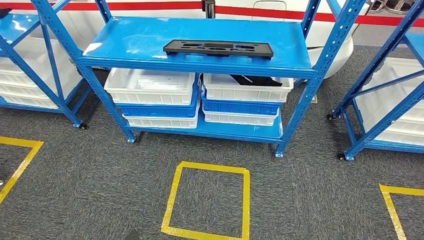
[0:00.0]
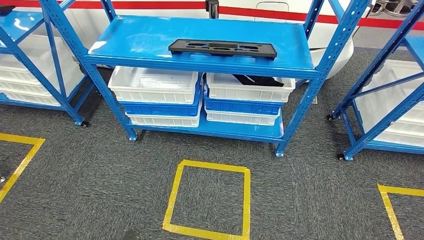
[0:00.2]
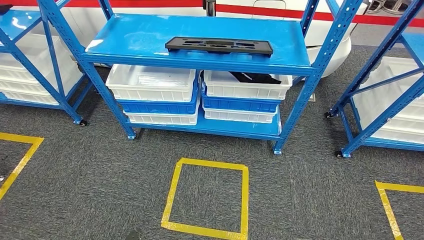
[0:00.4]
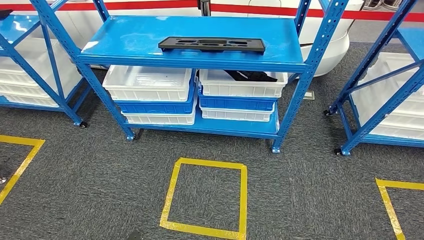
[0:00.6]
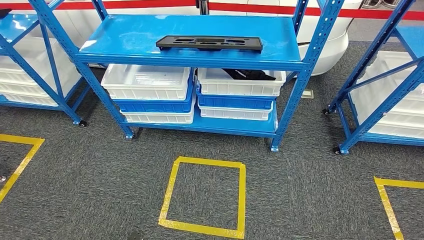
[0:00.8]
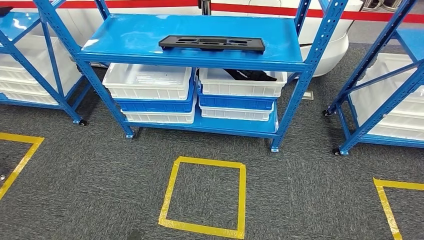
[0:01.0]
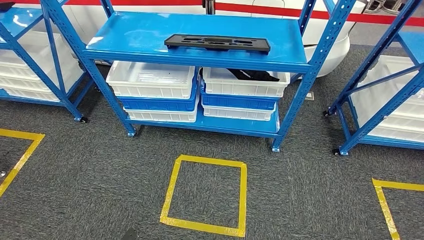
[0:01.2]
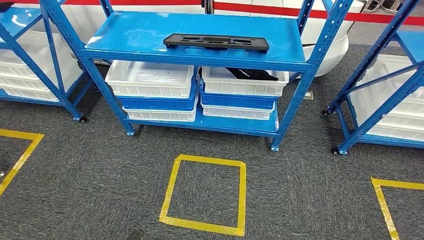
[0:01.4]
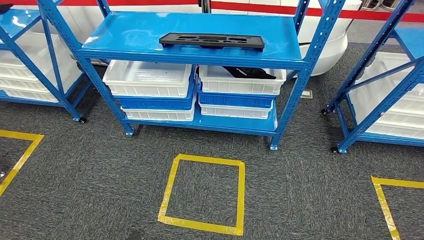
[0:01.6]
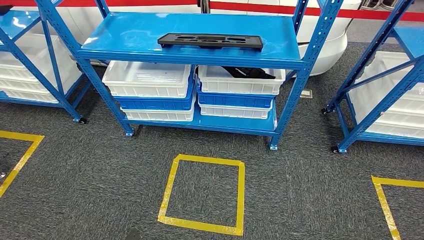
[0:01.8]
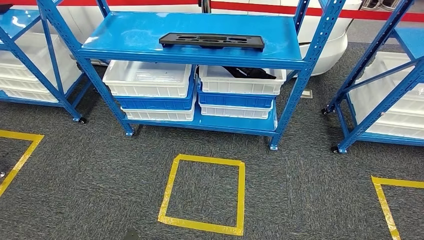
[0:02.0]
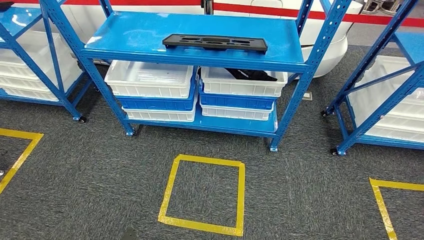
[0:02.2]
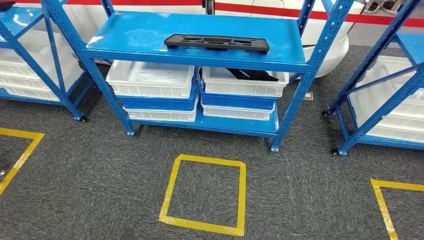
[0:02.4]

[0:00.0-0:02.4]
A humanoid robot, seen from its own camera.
Step, 0:00.0 to 0:02.2: Move to the initial position of the shelf.
0:01.2 to 0:02.4: There are only small adjustments of the hands.

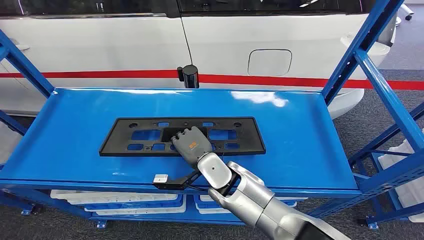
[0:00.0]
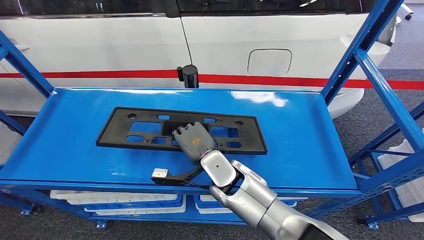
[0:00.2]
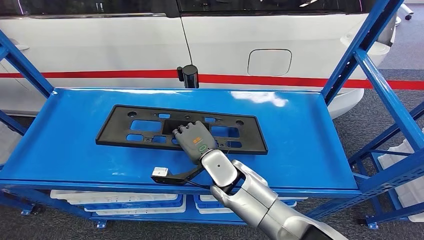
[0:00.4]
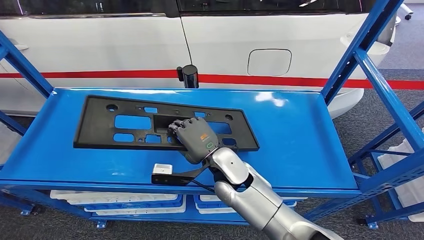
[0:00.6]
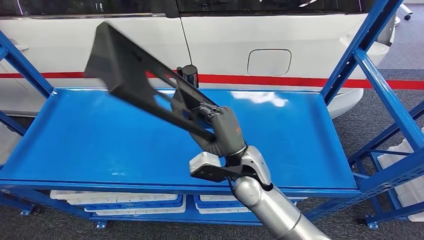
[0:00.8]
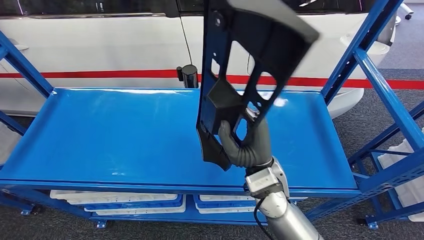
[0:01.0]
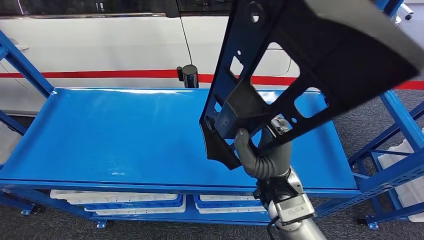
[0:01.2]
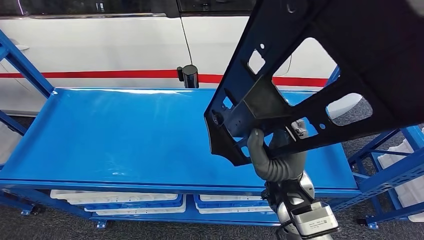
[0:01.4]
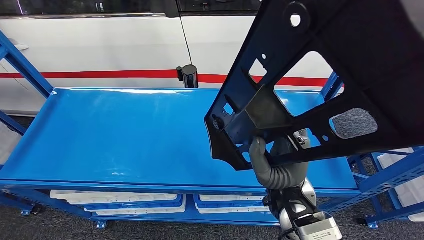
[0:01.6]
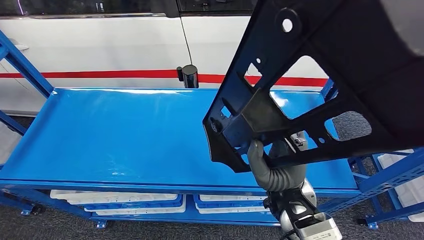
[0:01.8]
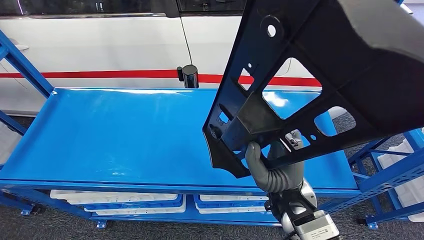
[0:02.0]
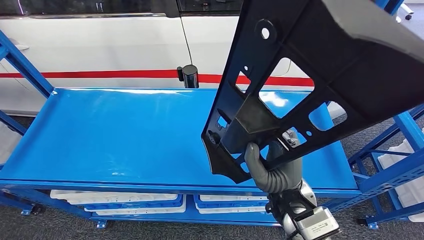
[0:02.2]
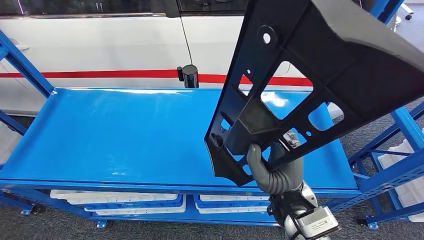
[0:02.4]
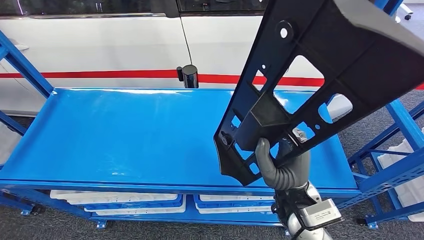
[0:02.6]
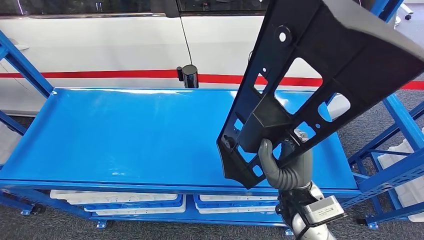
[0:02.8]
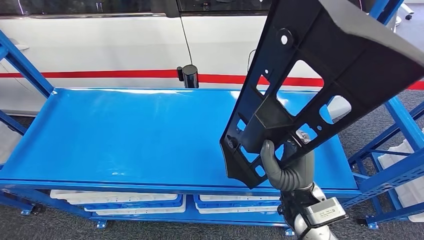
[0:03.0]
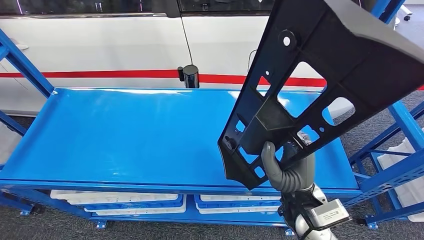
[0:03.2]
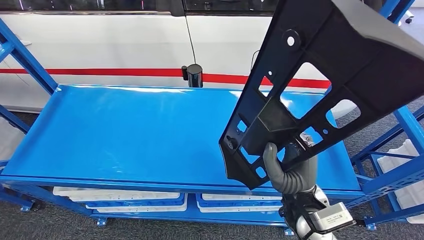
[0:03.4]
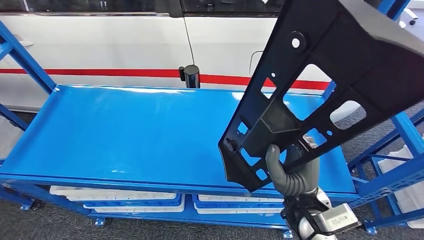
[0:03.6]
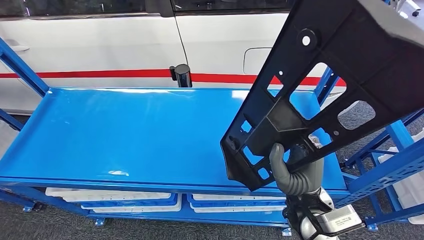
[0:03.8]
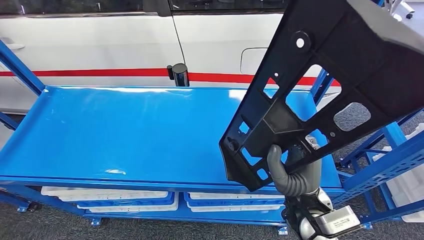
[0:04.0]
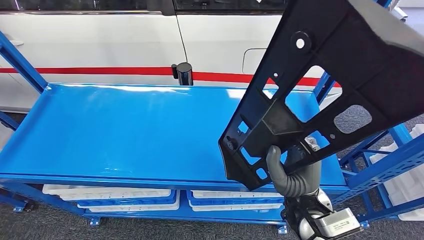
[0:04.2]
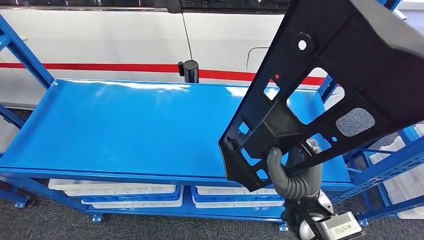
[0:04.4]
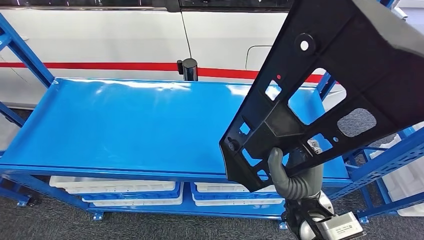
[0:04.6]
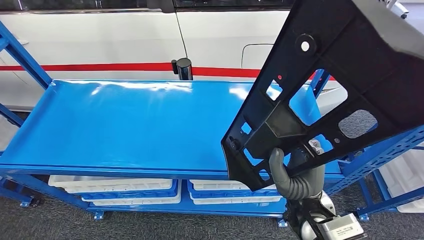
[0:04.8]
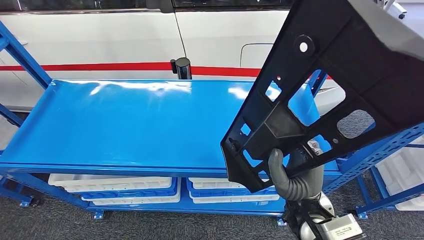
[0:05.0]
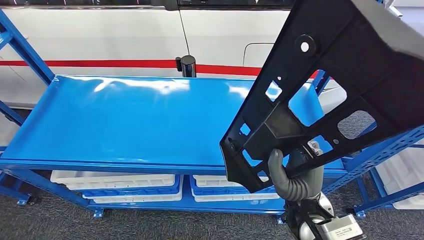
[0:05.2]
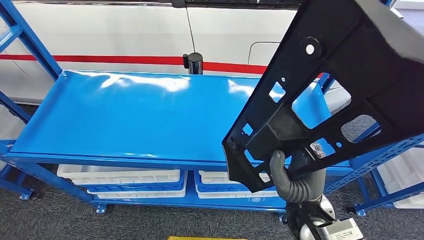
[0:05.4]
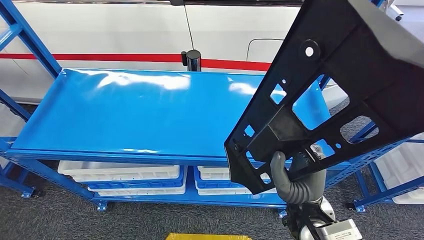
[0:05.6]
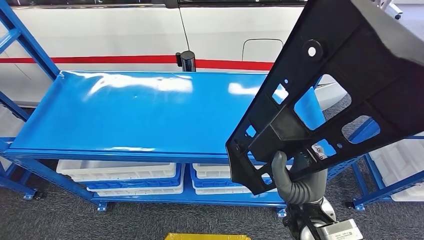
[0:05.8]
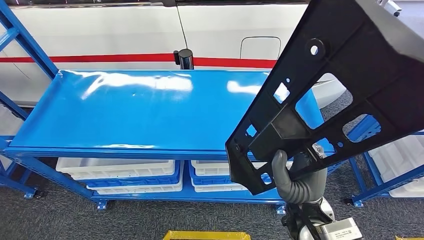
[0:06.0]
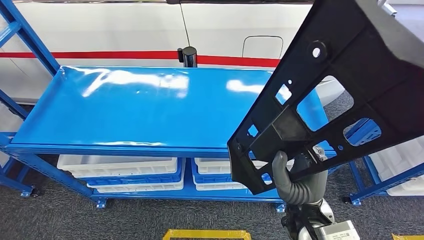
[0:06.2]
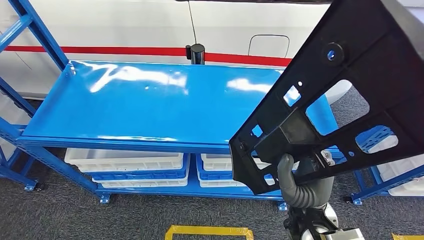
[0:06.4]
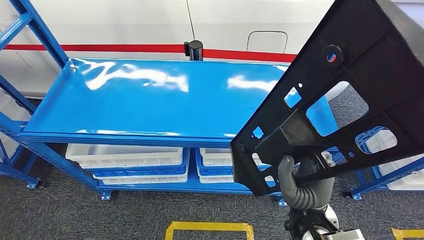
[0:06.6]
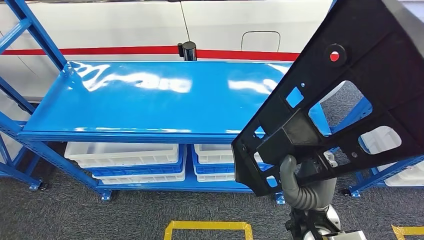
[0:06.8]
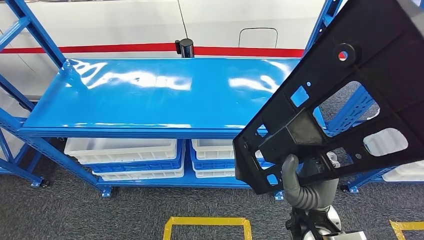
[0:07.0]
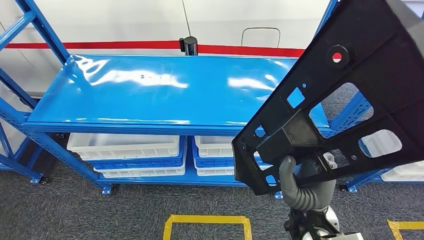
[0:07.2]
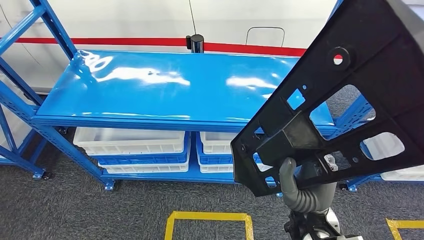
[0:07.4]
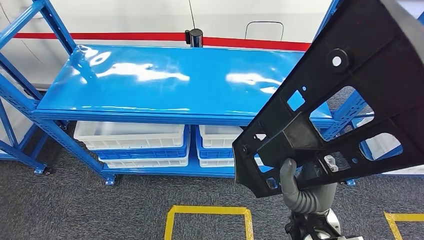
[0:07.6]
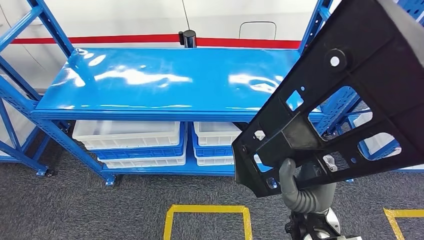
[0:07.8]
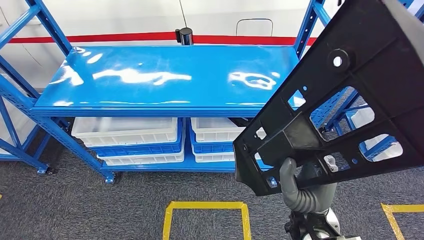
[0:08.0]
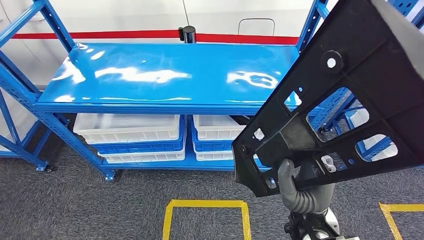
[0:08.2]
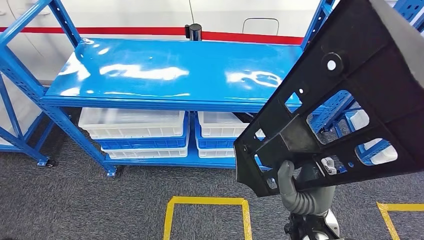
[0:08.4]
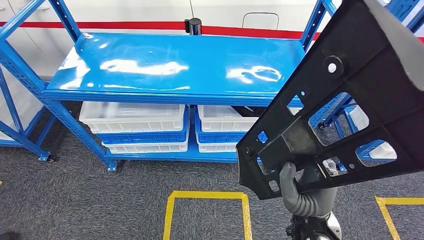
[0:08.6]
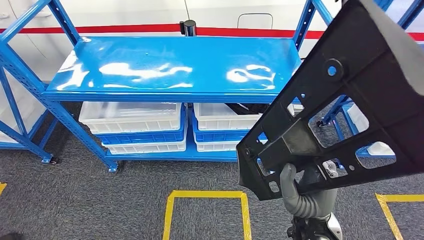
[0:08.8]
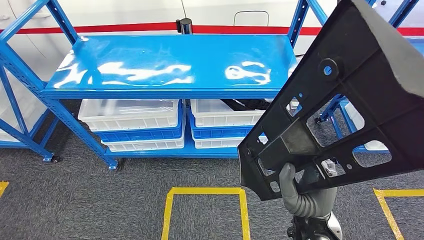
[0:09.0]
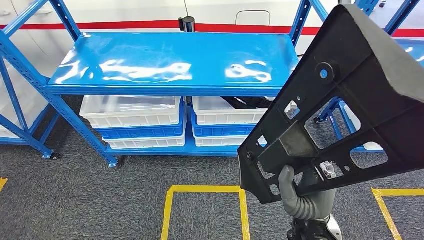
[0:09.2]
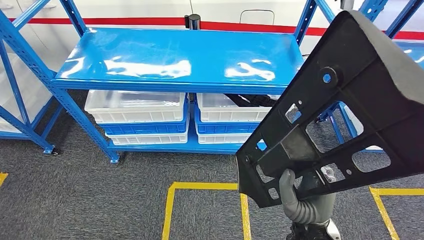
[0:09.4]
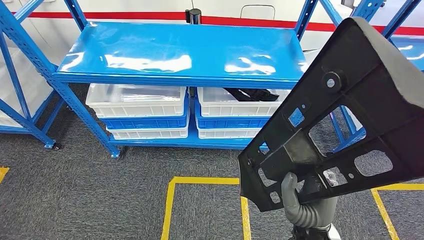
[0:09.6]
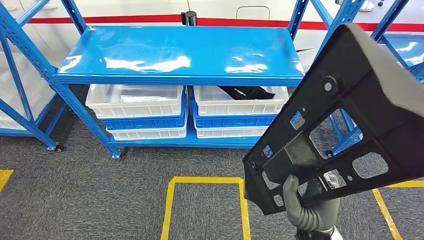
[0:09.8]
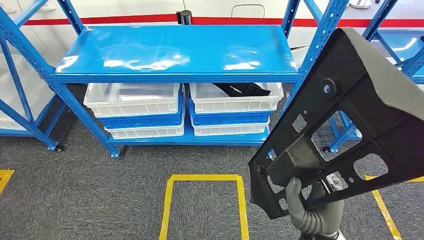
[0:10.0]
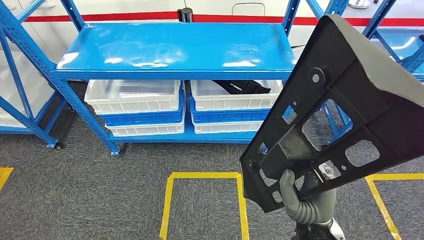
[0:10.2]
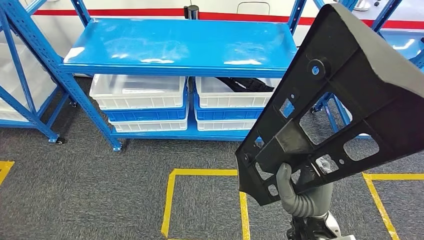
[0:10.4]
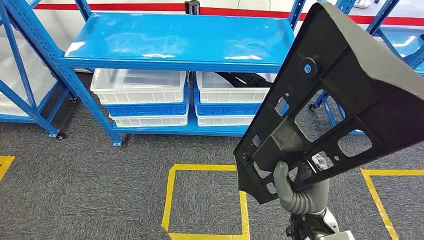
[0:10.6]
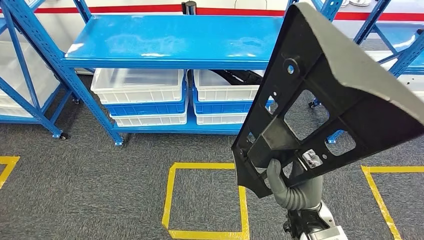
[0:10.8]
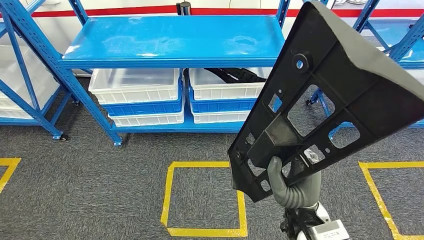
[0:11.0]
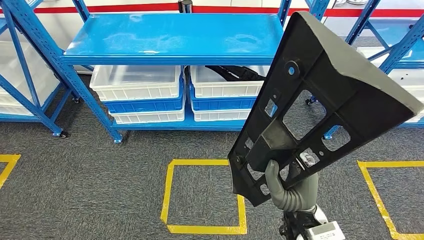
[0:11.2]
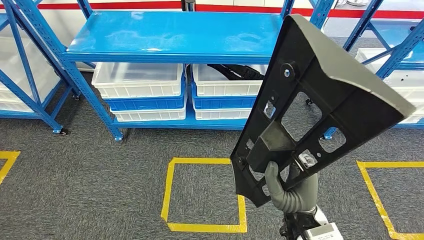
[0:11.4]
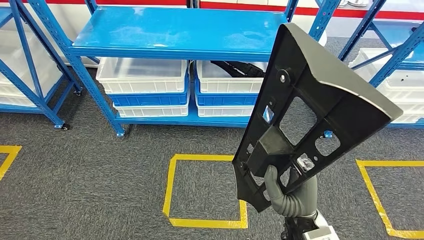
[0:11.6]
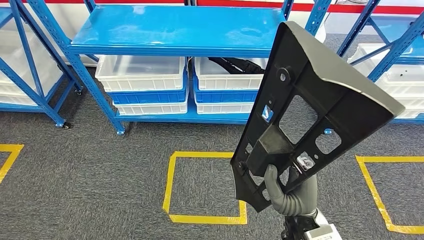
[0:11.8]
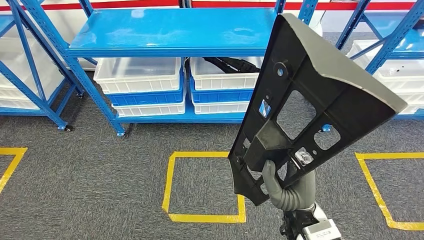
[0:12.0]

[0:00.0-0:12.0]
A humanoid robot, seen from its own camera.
Step, 0:00.0 to 0:07.2: Pick up the large material from the shelf.

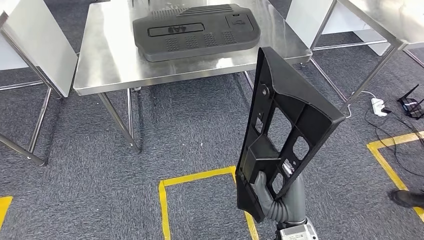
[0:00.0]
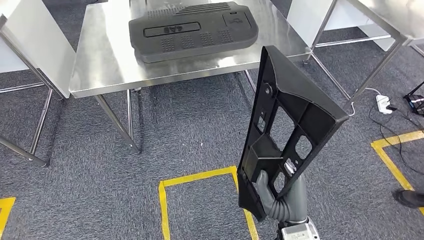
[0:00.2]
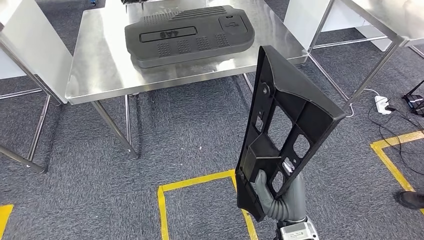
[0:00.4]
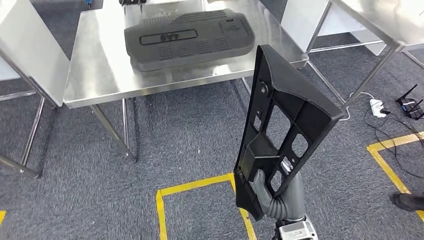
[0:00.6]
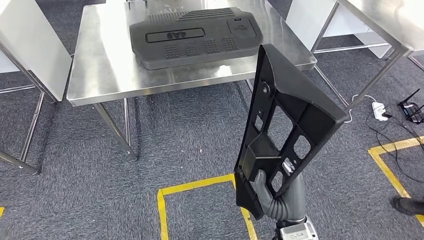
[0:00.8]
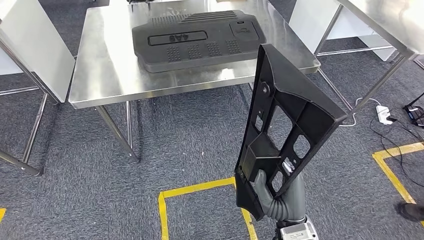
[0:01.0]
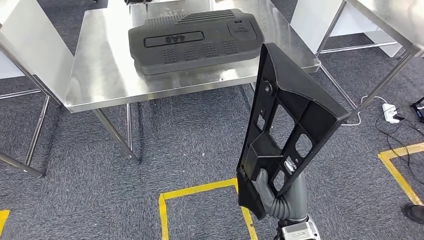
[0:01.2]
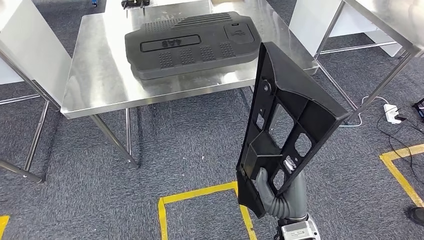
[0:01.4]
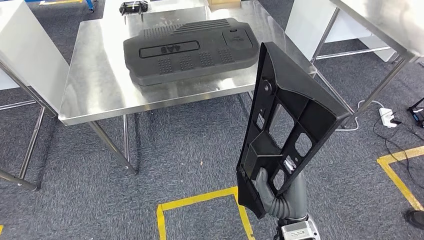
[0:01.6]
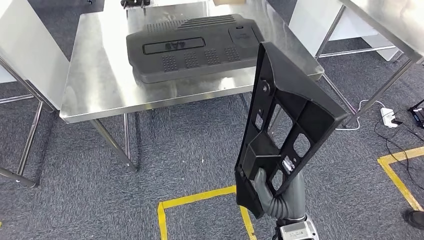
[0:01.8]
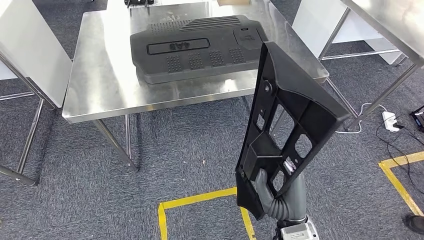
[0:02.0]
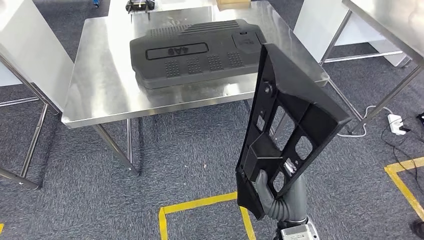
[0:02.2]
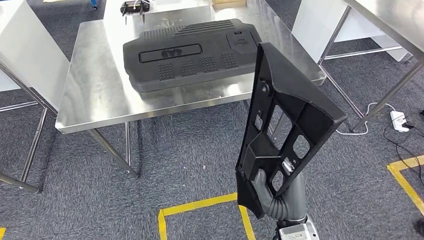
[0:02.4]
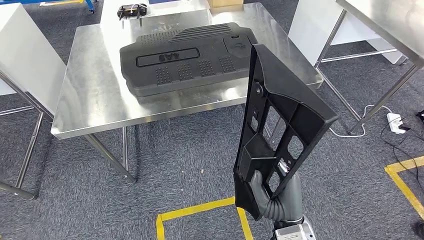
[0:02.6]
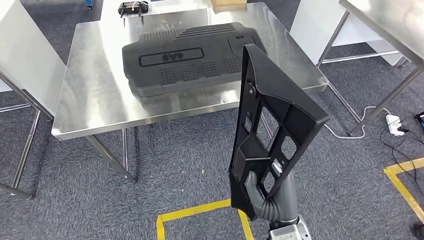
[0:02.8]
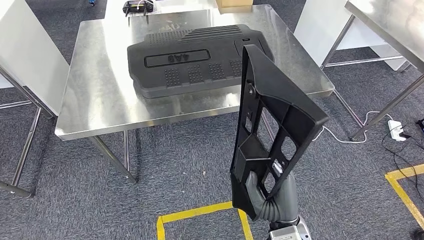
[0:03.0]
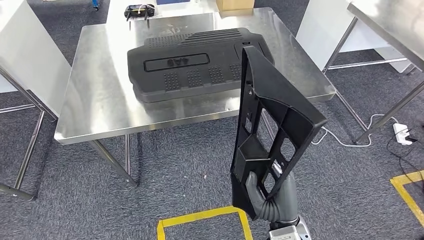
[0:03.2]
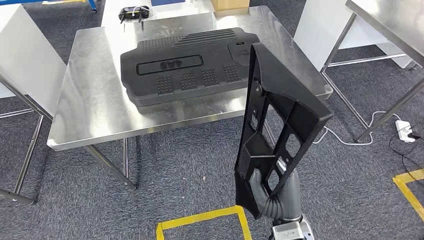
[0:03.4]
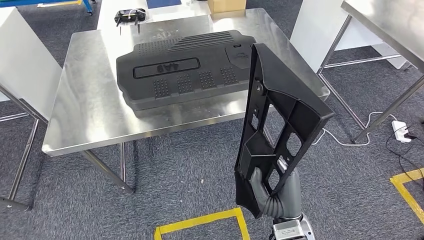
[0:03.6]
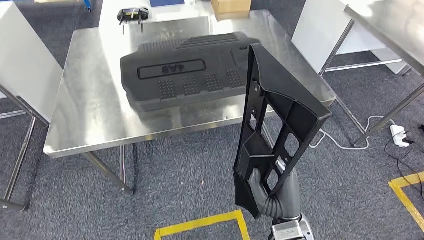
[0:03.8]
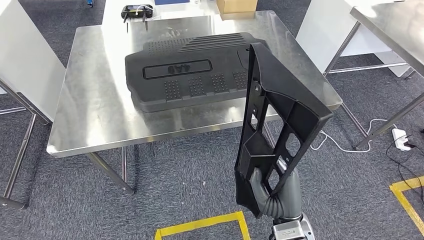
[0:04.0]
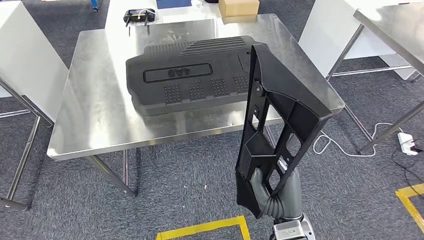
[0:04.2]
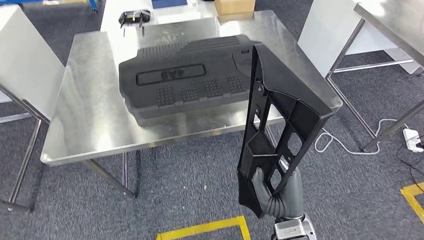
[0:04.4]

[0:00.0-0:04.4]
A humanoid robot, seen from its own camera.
Step, 0:00.0 to 0:02.4: Move the large material to the workbench.
